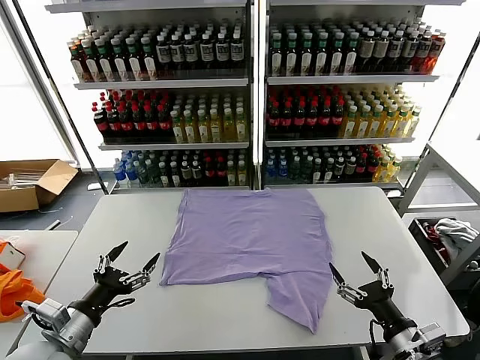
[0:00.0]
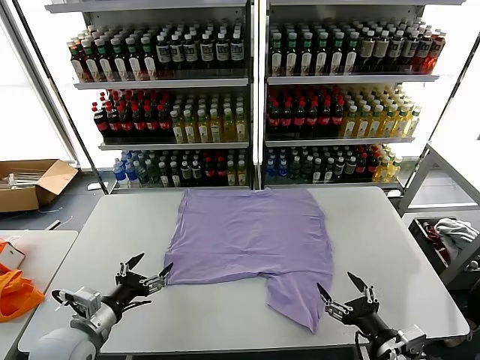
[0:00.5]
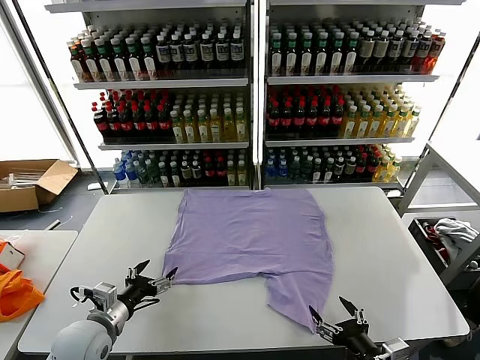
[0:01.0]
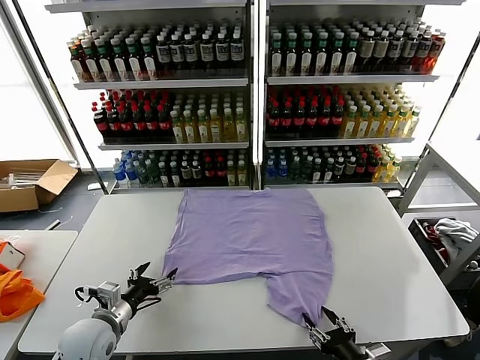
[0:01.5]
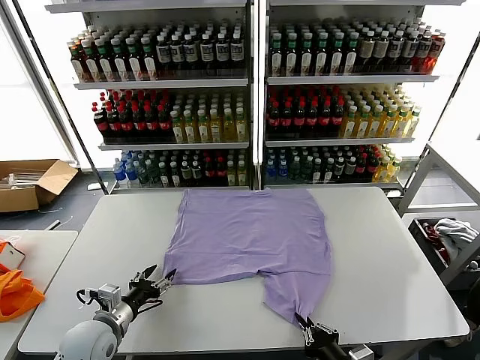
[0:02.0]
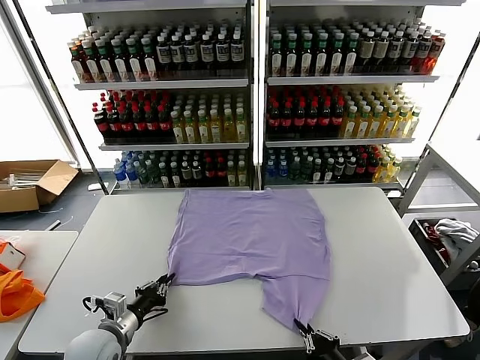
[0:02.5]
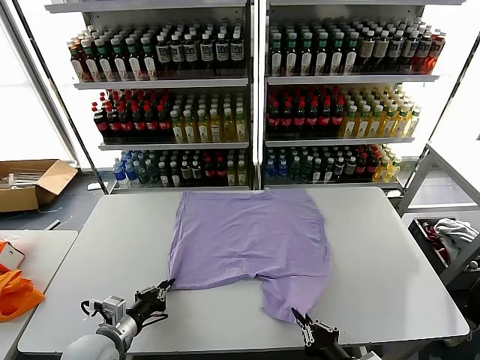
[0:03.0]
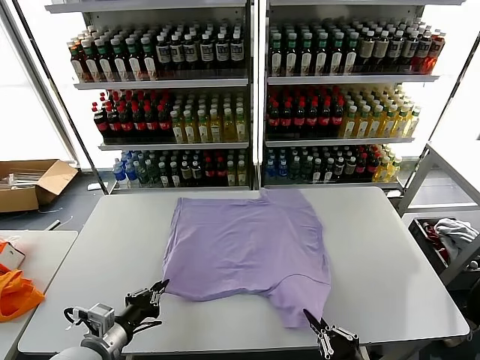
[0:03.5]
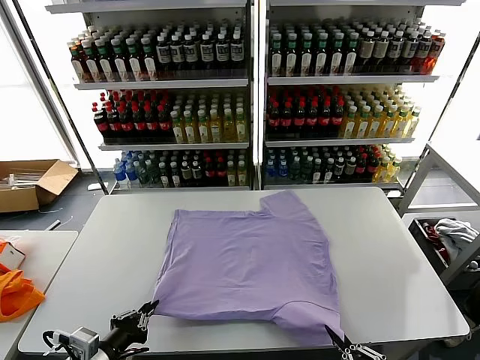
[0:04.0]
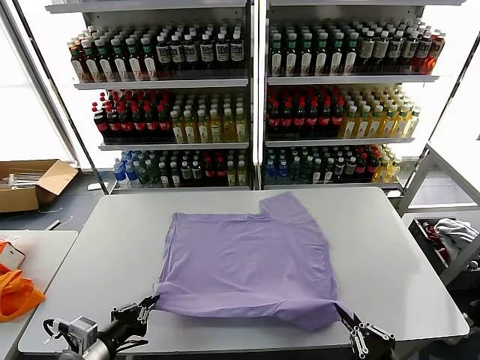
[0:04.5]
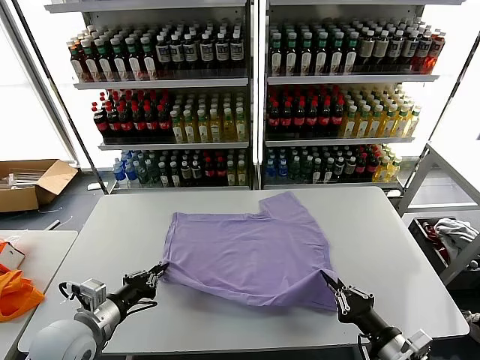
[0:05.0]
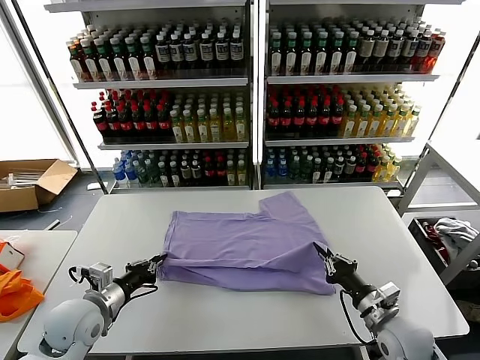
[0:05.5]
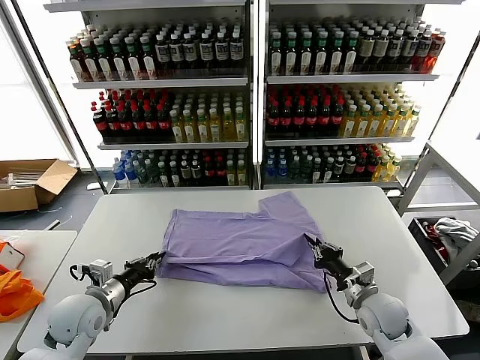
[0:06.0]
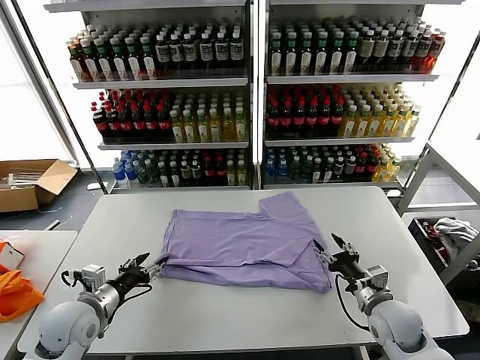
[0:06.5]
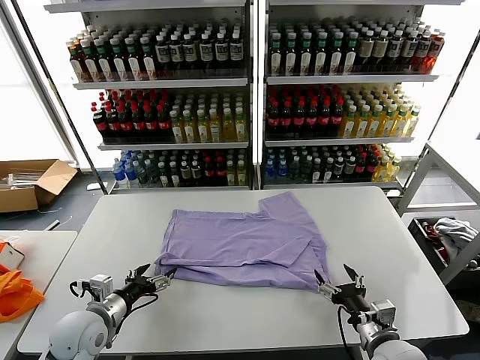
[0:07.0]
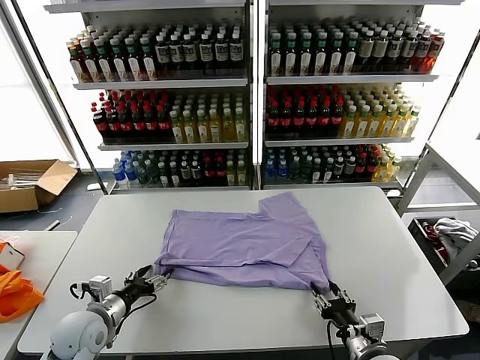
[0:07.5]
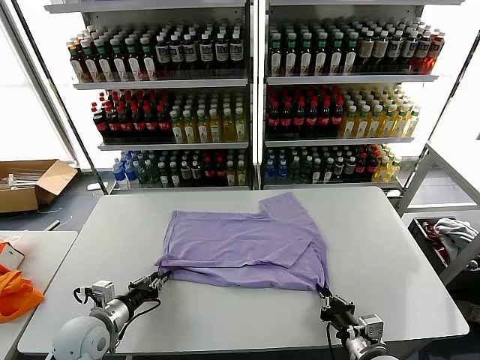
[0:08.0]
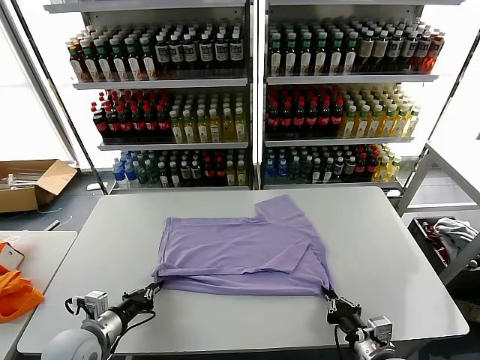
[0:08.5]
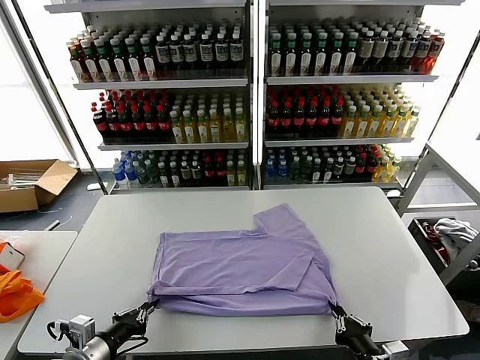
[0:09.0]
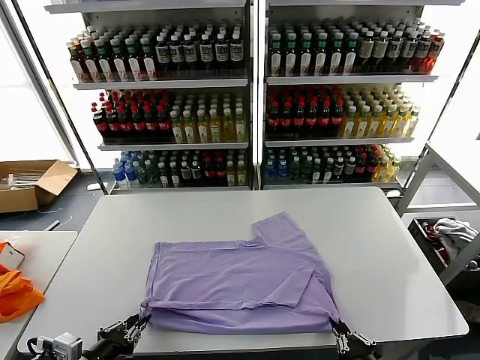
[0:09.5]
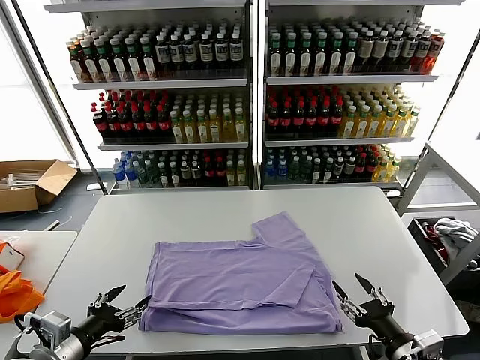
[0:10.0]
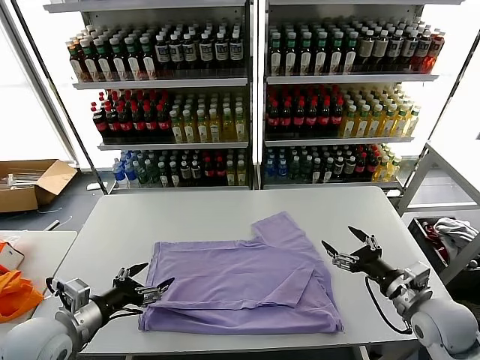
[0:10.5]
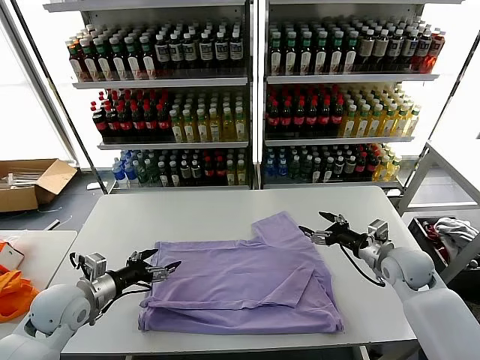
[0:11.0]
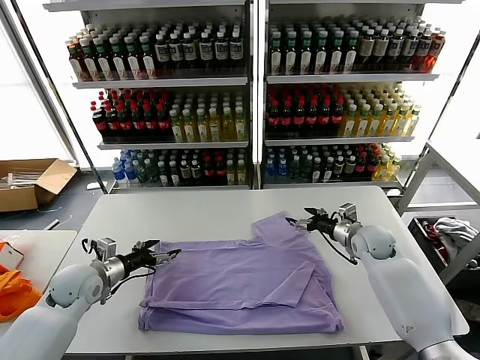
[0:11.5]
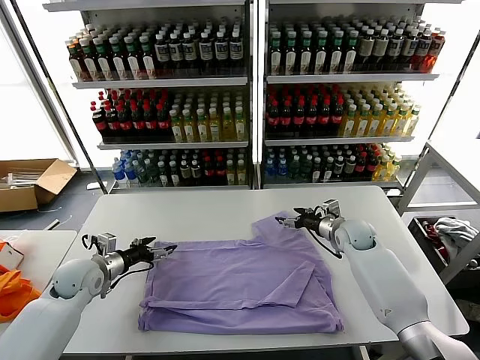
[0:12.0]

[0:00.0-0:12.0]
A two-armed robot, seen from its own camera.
Task of the whole recording: fold and organize the clothes.
Step, 0.0 to 2.5 s: use both grippers simultaneously to clamp the lower edge of the clothing fabric.
Step, 3.0 to 6.0 s: use both grippers to drag the lower edge of the fabric forward and fold it over the upper edge.
Step, 6.5 to 9.5 s: Drag the clothes downward with both gripper.
2.0 to 4.0 s: The left gripper shifts some 15 cm backward and upward, and closes. Meanwhile the right gripper moves backward, to the right and upward, about 10 cm.
4.0 to 6.0 s: The left gripper shifts roughly 15 cm forward; the right gripper is displaced forward by approximately 30 cm.
6.0 to 8.0 s: The left gripper opens, then closes again; the right gripper moves backward, roughly 15 cm, and opens, then closes again.
8.0 to 10.0 s: The right gripper heads upward and to the right, covering approximately 10 cm, reaches approximately 10 cm backward, then returns, and opens its fingers. The left gripper is displaced backward and upward by some 15 cm, and opens.
10.0 to 12.0 s: The right gripper is displaced forward by roughly 35 cm. The left gripper travels forward by roughly 25 cm.

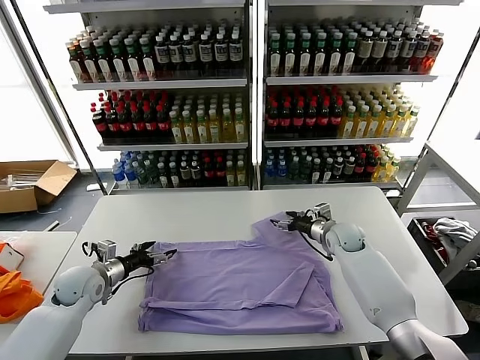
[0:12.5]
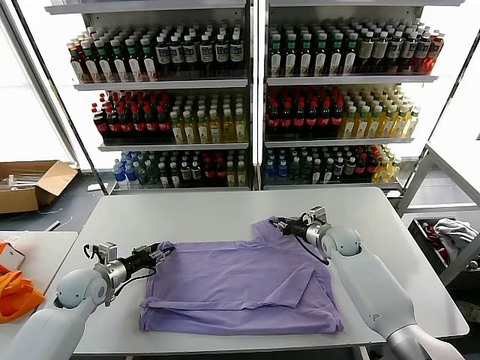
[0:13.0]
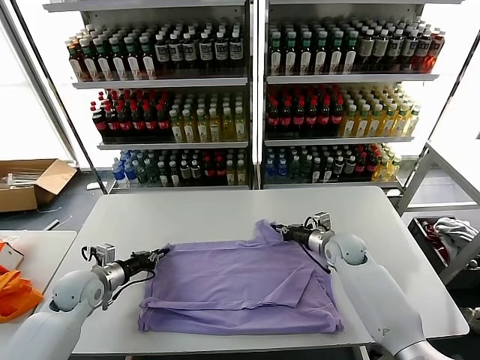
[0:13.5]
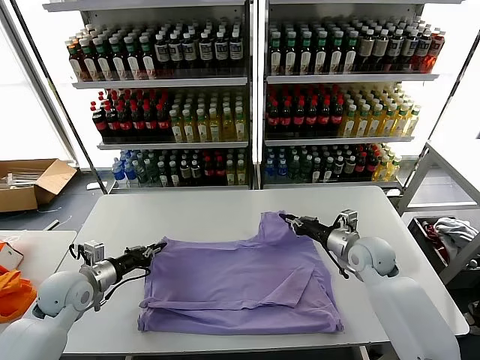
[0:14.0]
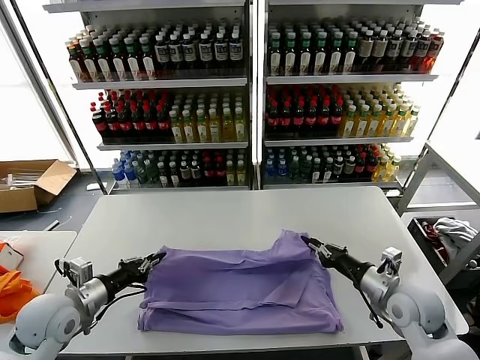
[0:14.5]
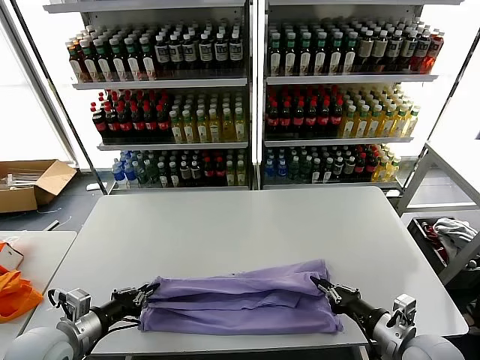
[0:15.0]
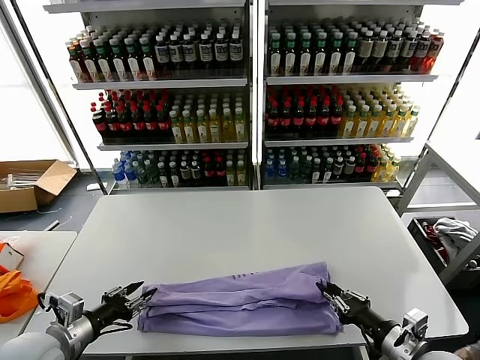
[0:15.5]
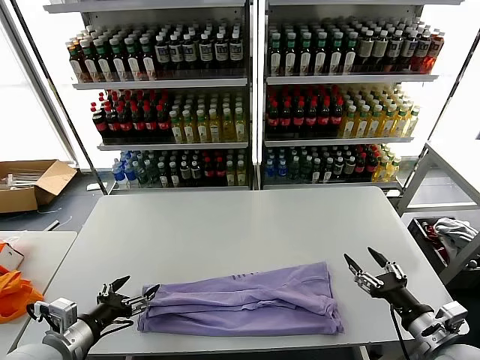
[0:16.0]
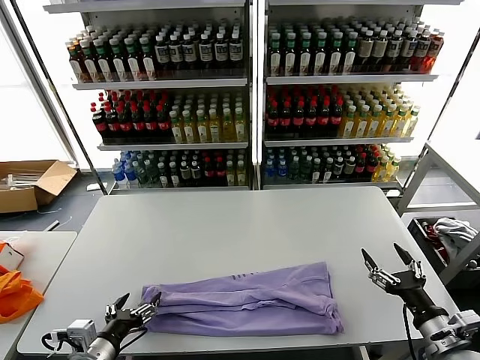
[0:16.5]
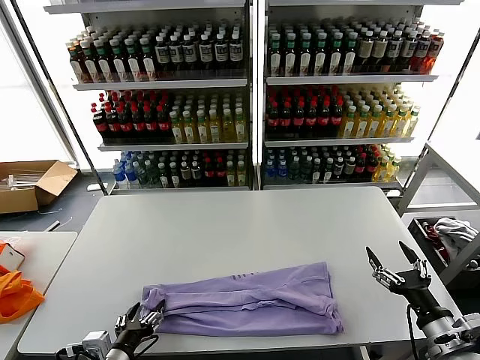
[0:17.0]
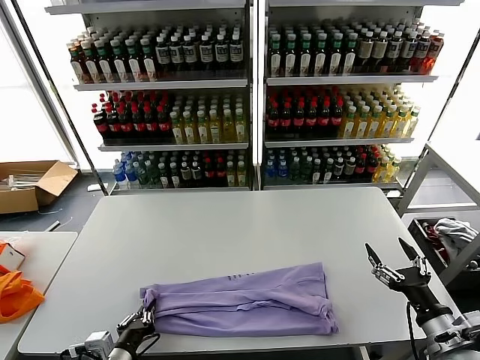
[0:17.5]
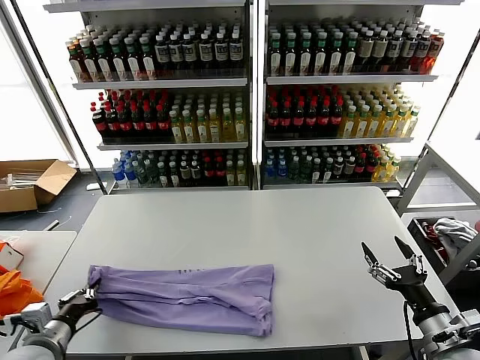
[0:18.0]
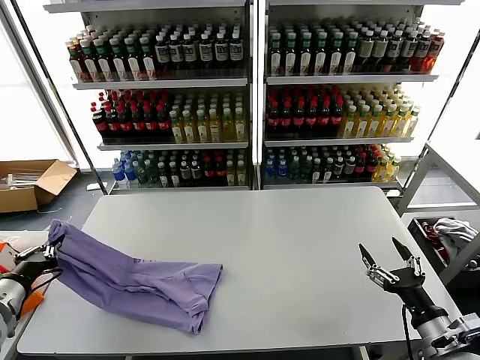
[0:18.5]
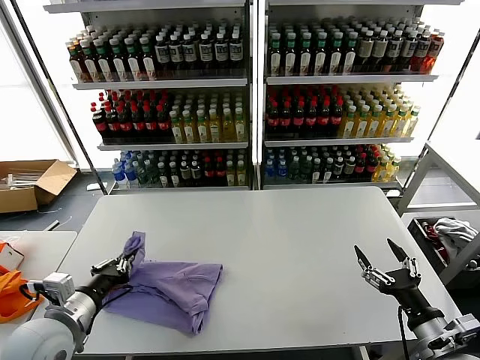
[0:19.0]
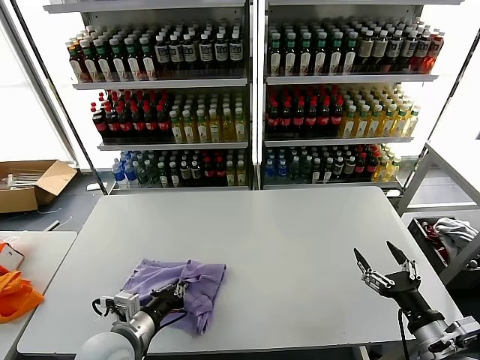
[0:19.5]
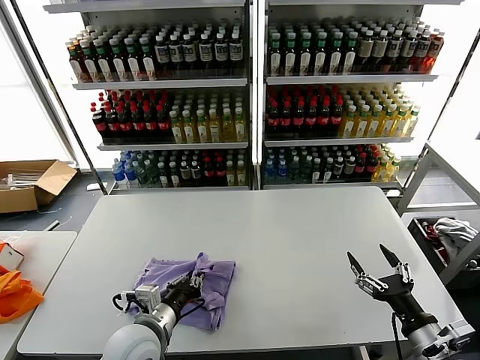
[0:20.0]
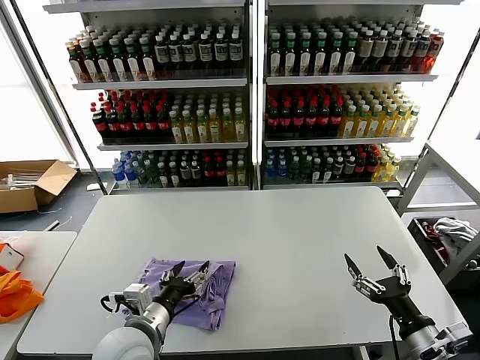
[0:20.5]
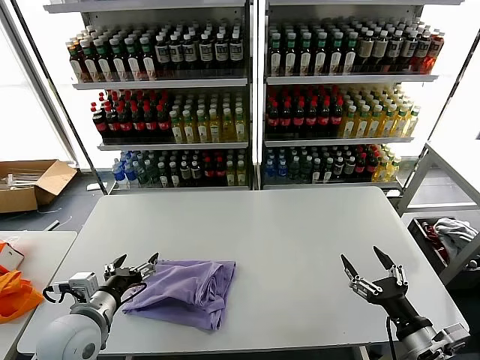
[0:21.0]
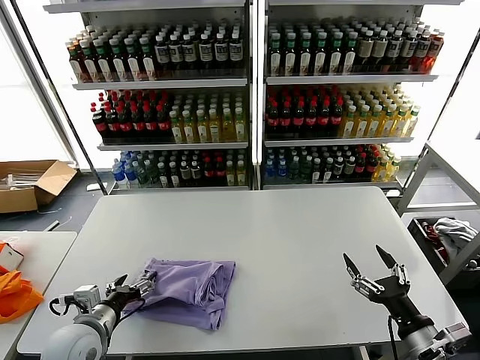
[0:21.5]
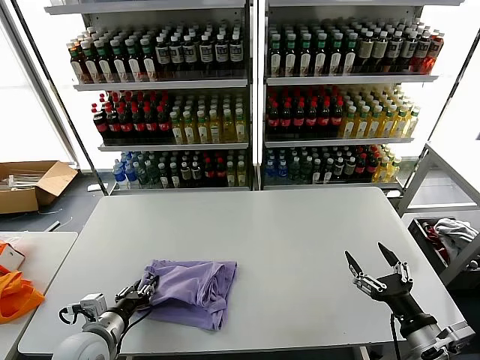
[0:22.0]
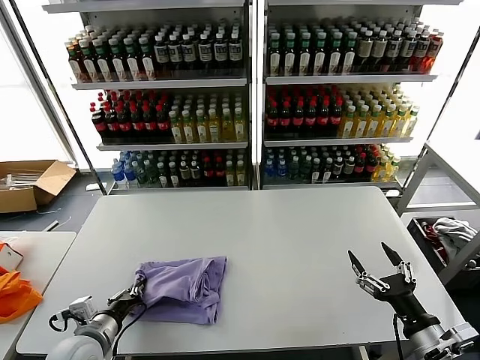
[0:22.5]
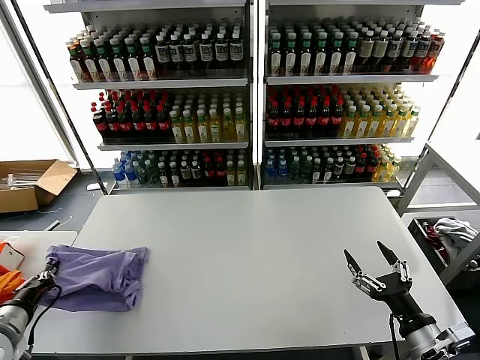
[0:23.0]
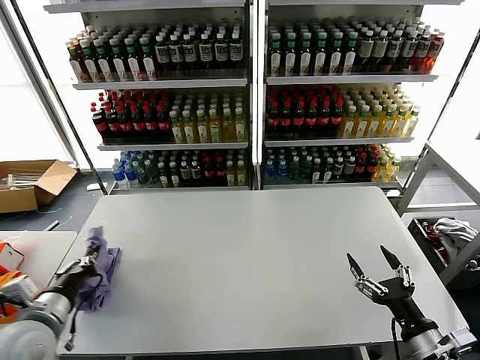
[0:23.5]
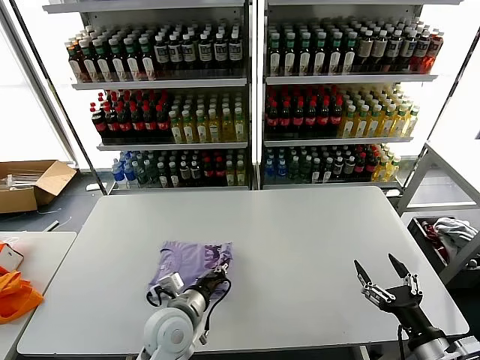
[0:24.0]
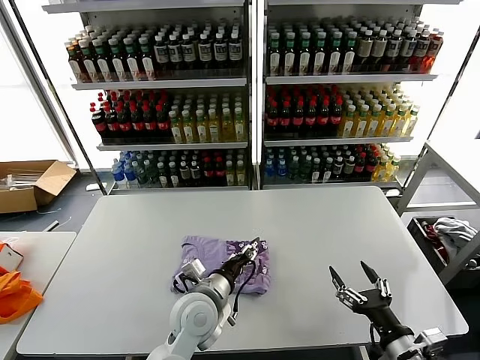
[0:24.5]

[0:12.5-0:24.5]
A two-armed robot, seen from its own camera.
Task of the whole recording: fold and organize the clothes.
Step, 14.0 to 15.5 s: use both grippers to drag the upper edge of the fabric backward and fold it over the lower edge.
Step, 16.0 to 17.5 s: use the left gripper to clamp the left edge of the fabric.
Step, 18.0 to 20.0 s: use the left gripper to drag the left edge of the fabric to the left and folds it over the right edge.
Step, 20.5 to 24.0 s: Flip the folded clothes over with left gripper.
12.5 to 14.5 s: The left gripper shifts about 15 cm backward and upward, and closes up. The right gripper travels backward by roughly 25 cm, and closes up.
14.5 to 16.5 s: The two grippers go roughly 10 cm backward and to the right. The right gripper opens its fingers. Meanwhile the left gripper opens its fingers.
16.5 to 18.5 s: The left gripper travels to the left, upward and forward by roughly 20 cm, and closes up.
18.5 to 20.5 s: The left gripper moves to the right, approximately 25 cm, and opens its fingers.
20.5 to 22.5 s: The left gripper moves to the left and downward, some 15 cm, and closes.
22.5 to 24.5 s: The left gripper goes some 20 cm to the right, and opens its fingers.

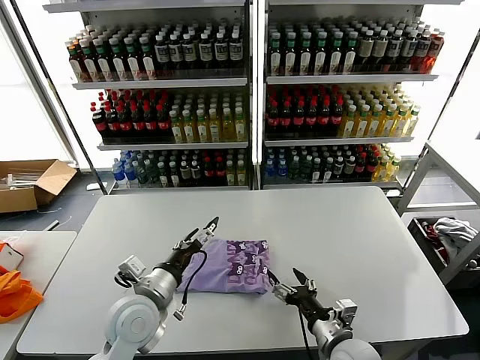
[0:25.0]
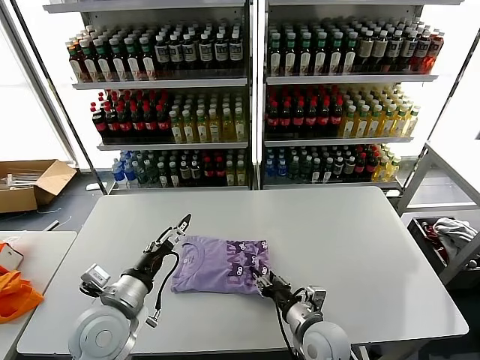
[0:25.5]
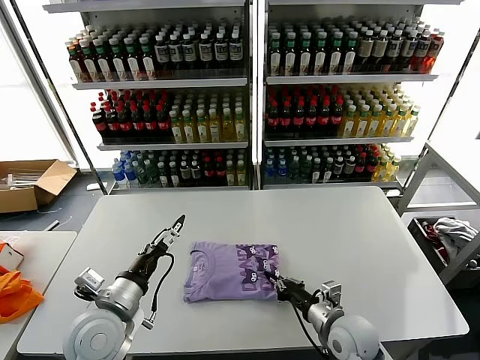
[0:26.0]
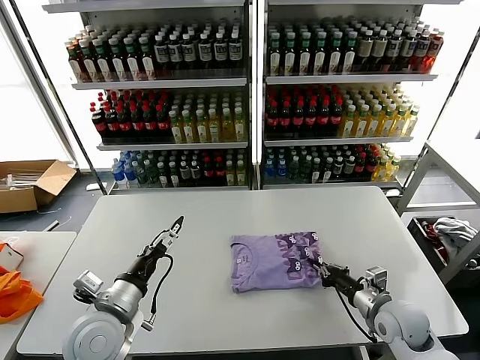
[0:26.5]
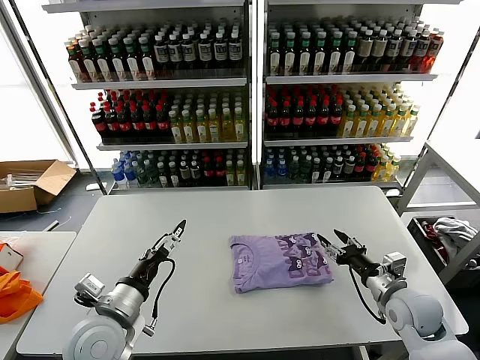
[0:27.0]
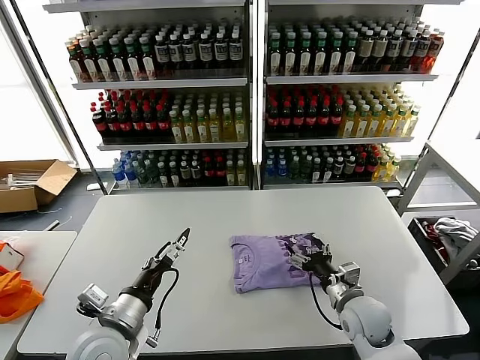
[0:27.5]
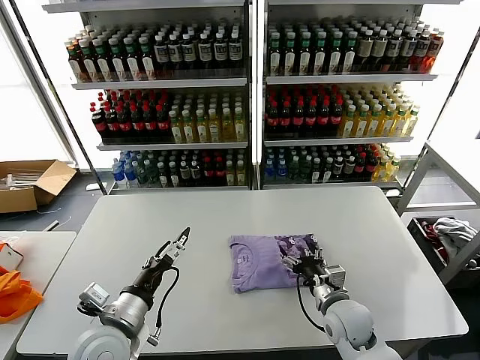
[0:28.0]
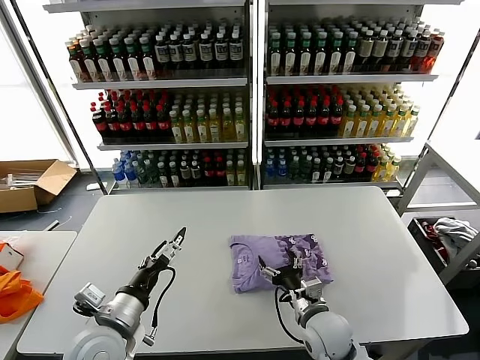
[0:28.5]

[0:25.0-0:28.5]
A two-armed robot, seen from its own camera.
Task of the whole recording: fold and organize the clothes.
25.0 to 27.0 s: The left gripper shifts roughly 5 cm to the left; the right gripper is displaced to the right and forward by about 15 cm, and closes up.
27.0 to 28.5 s: The right gripper travels to the left by approximately 15 cm, and opens up.
